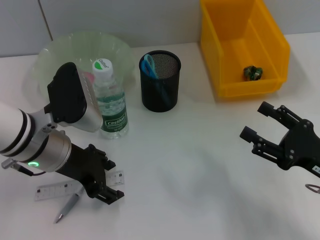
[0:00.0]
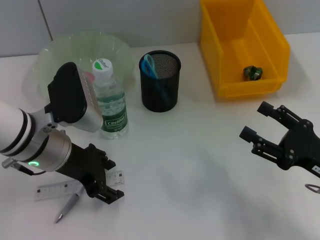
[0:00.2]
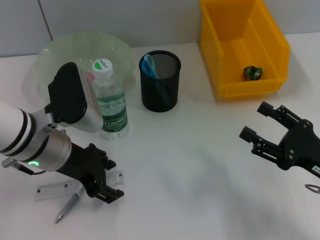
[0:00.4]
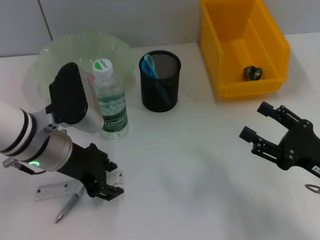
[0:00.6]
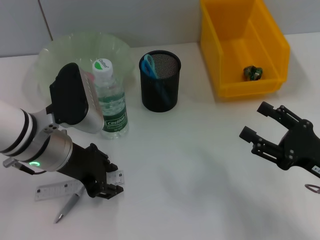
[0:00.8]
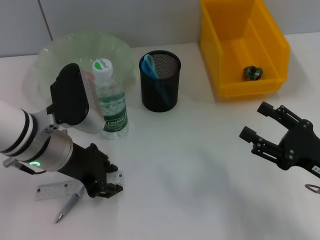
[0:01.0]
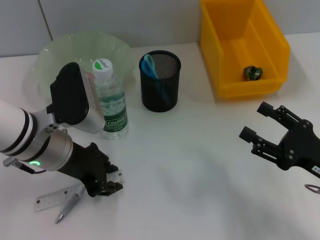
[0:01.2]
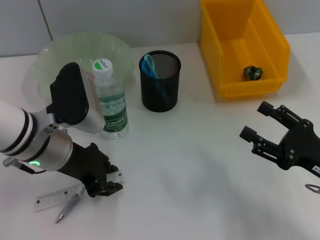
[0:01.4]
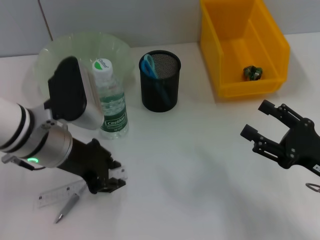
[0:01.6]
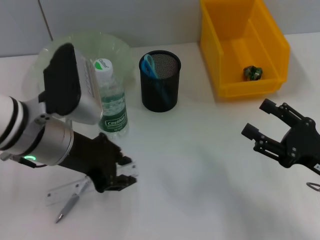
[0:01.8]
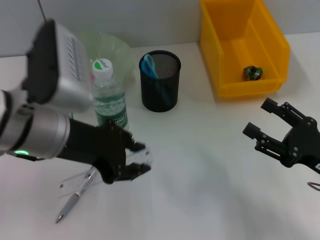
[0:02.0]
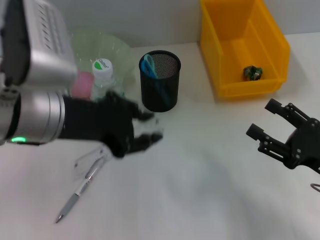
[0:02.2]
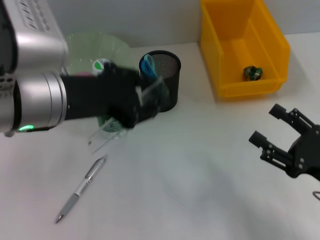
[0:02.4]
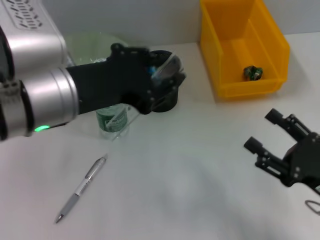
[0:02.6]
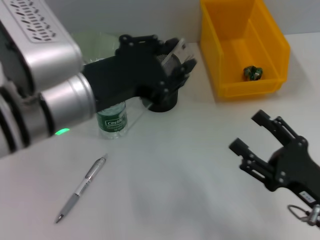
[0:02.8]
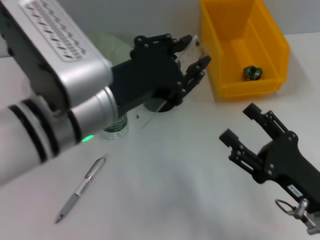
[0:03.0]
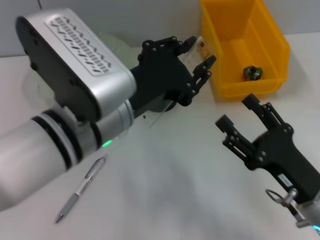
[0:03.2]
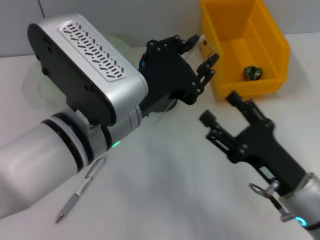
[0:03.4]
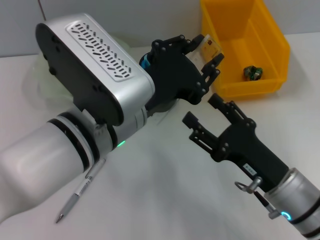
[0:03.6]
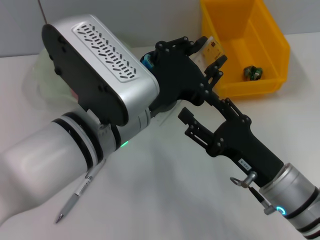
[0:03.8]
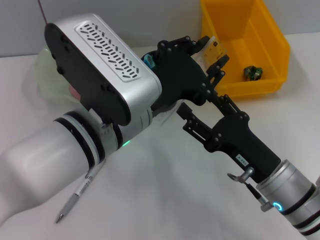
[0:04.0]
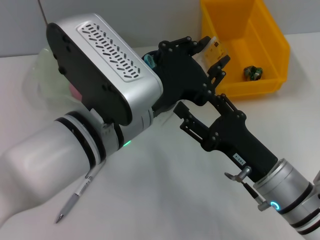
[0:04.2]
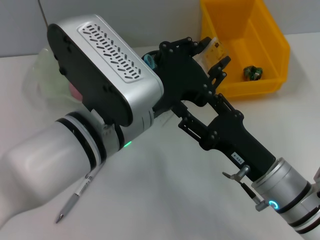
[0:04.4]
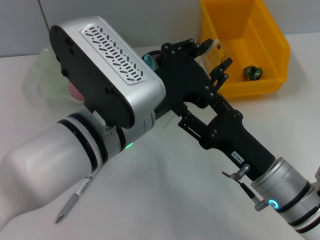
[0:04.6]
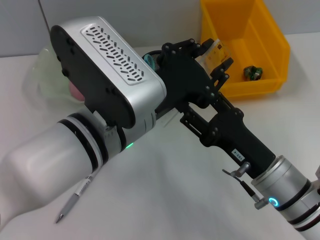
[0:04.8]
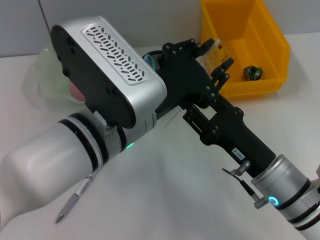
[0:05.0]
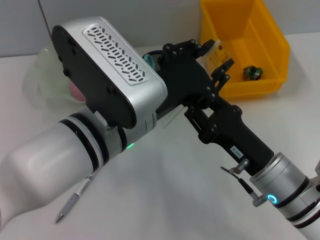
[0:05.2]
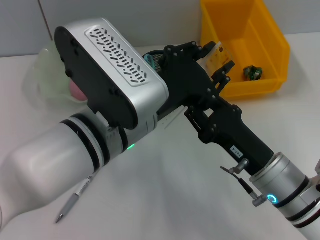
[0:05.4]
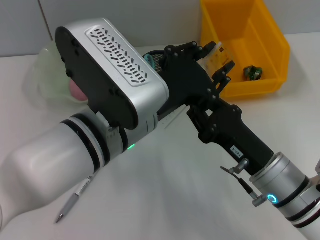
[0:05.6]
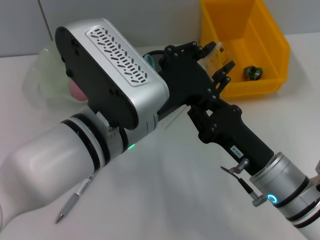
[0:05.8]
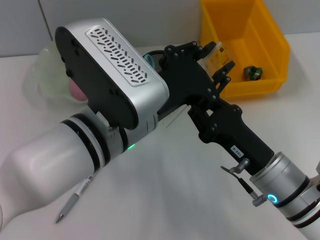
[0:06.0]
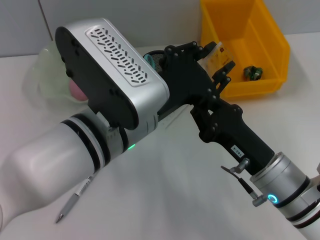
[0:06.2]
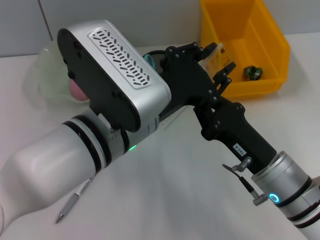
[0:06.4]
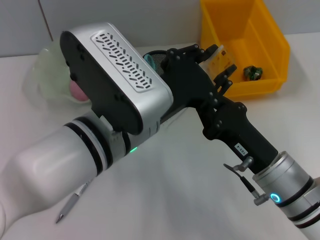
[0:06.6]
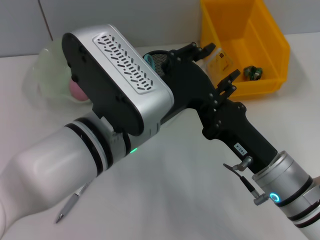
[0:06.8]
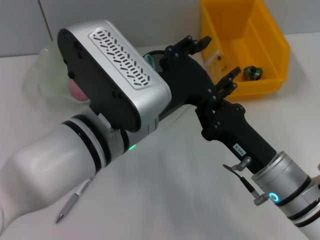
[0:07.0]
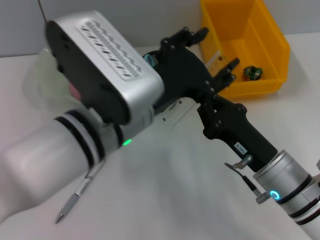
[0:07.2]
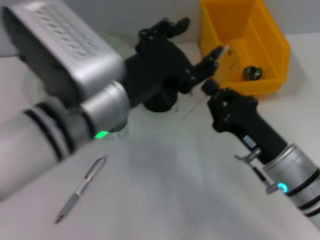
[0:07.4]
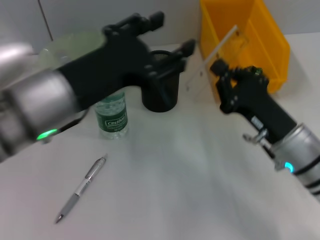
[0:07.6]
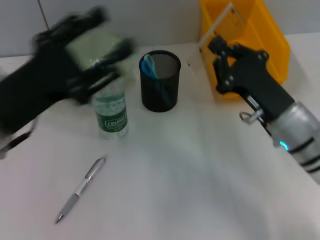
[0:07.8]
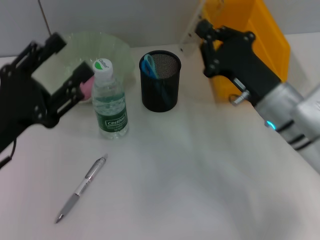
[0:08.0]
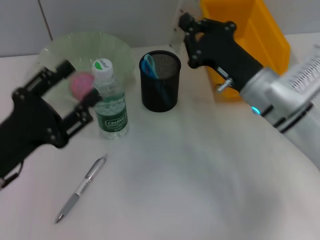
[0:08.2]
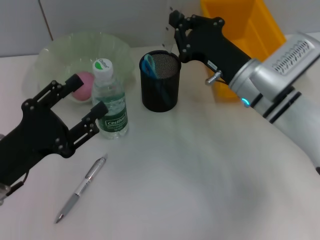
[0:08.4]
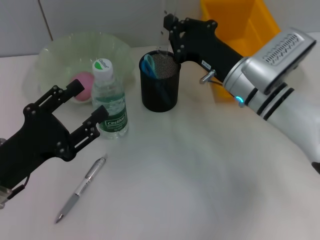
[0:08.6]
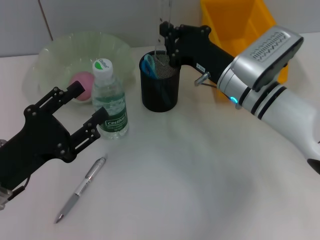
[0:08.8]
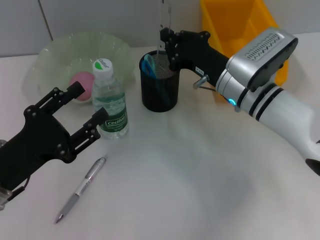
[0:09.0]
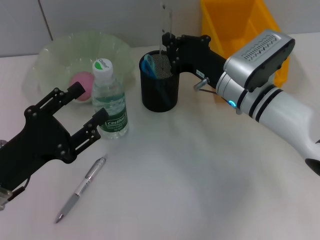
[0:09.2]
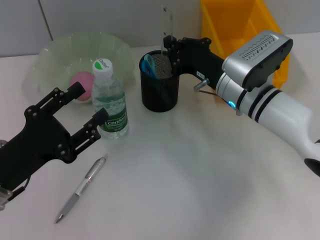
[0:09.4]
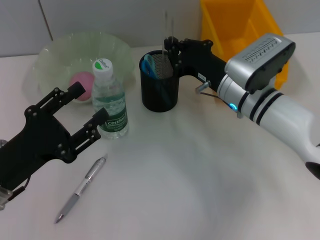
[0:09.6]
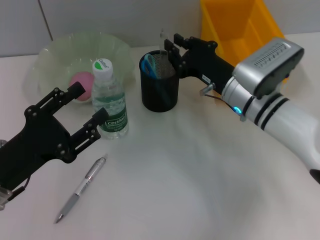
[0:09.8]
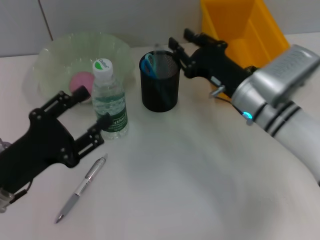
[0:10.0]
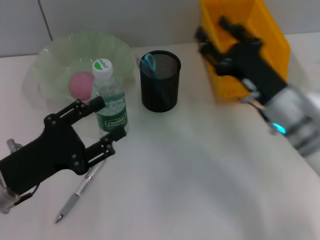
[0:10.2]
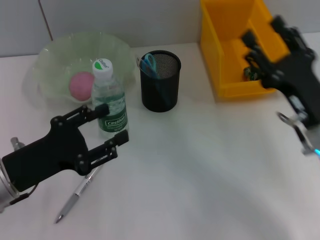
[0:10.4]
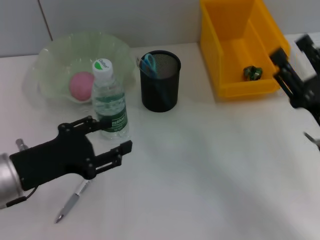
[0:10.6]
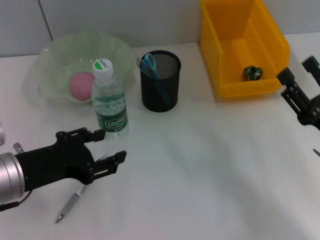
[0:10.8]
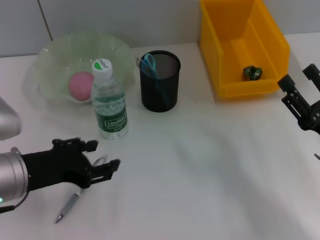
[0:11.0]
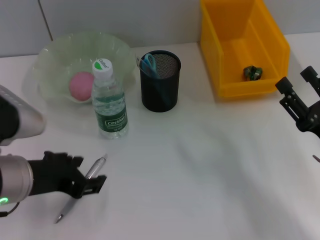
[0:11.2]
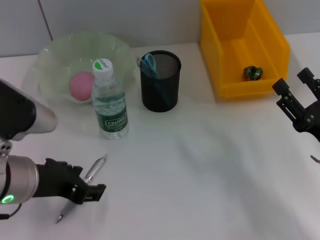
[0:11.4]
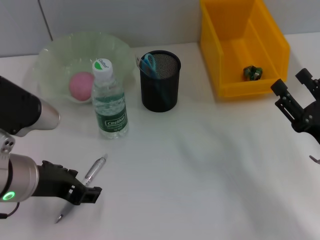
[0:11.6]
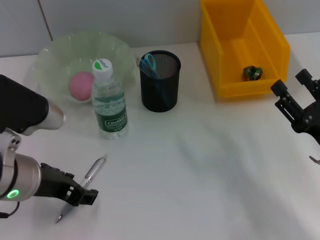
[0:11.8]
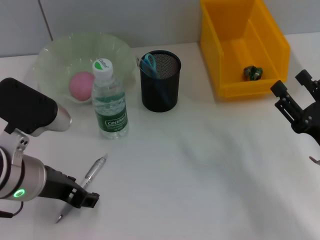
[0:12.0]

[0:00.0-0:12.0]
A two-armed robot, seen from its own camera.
Step, 0:01.6 to 0:07.0: Pass the ruler from the left hand to the right hand.
Step, 0:07.2 to 0:10.0: Place the ruler into the pen holder with the right hand.
0:00.0 to 0:01.6: The left gripper closes.
0:01.6 to 0:03.0: The left gripper shifts approximately 10 cm upward, backward and to the right. The right gripper shifts some 5 cm to the left.
0:03.0 to 0:04.4: The right gripper travels to the left by about 5 cm.
0:04.4 to 0:06.0: The right gripper closes up.
0:06.0 to 0:07.6: The left gripper travels to the left by about 5 cm, while the right gripper shifts by approximately 5 cm.
0:07.6 to 0:09.0: The right gripper is displaced forward and to the left by some 10 cm. The left gripper travels downward and to the left by about 15 cm.
0:09.0 to 0:10.4: The right gripper is displaced backward and to the right by some 15 cm, and opens up.
0:10.4 to 0:12.0: The right gripper ends up approximately 10 cm from where it was. Meanwhile the left gripper shifts about 5 cm to the right.

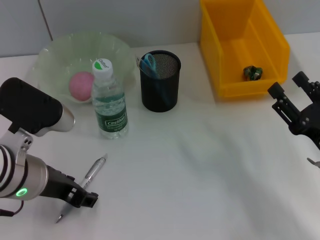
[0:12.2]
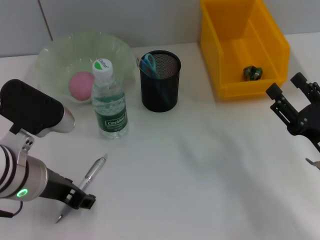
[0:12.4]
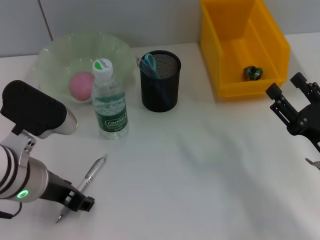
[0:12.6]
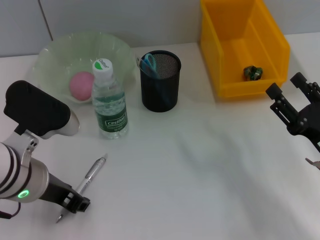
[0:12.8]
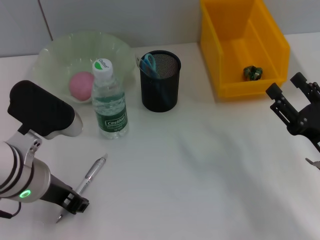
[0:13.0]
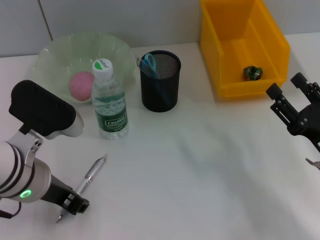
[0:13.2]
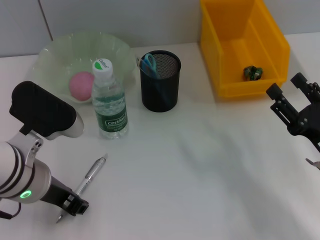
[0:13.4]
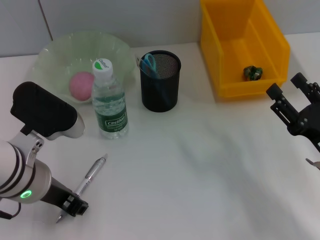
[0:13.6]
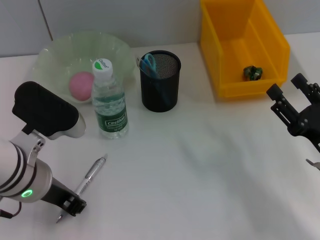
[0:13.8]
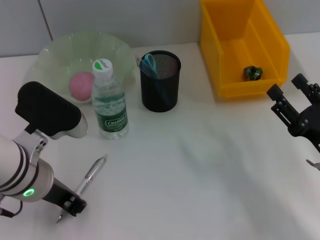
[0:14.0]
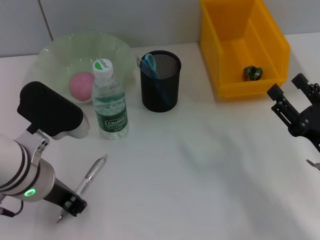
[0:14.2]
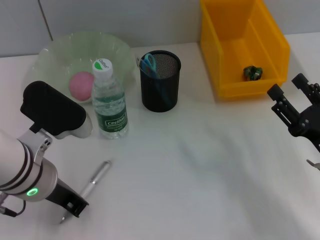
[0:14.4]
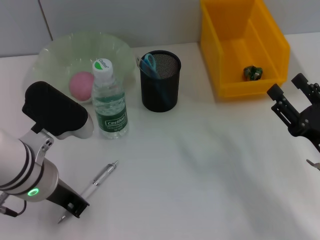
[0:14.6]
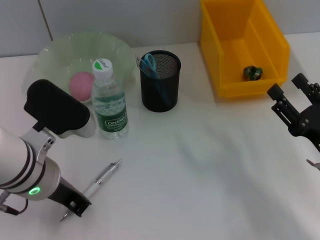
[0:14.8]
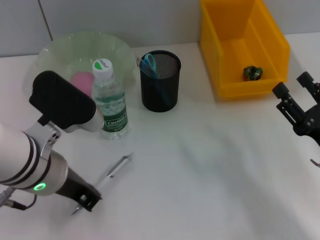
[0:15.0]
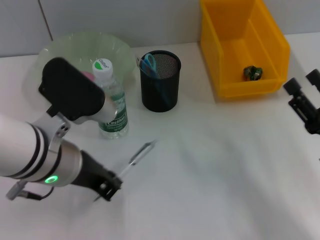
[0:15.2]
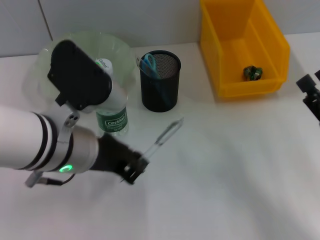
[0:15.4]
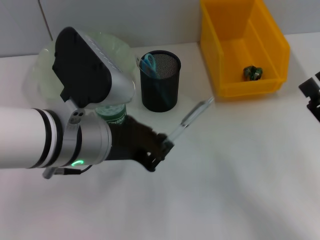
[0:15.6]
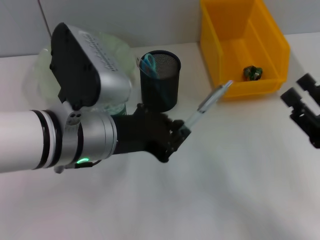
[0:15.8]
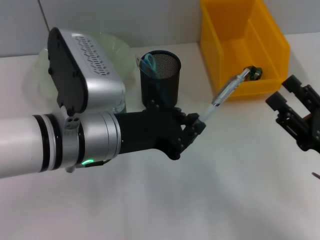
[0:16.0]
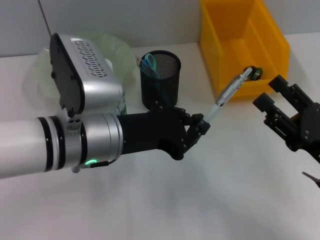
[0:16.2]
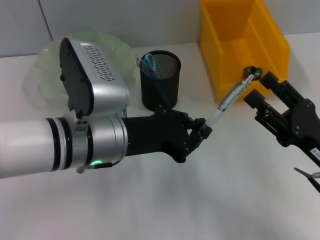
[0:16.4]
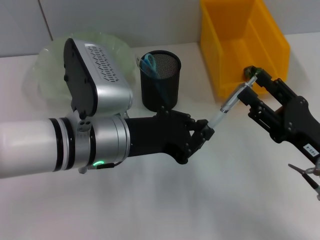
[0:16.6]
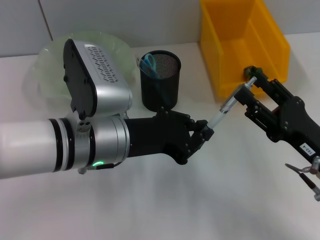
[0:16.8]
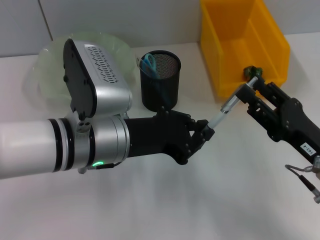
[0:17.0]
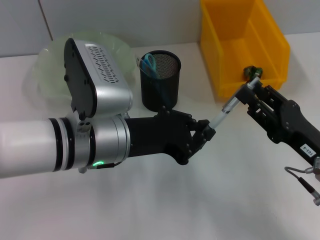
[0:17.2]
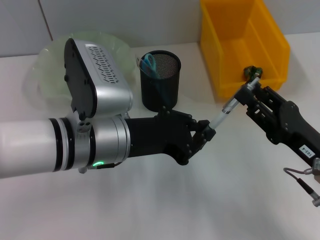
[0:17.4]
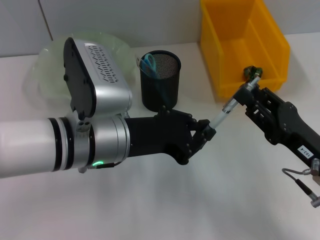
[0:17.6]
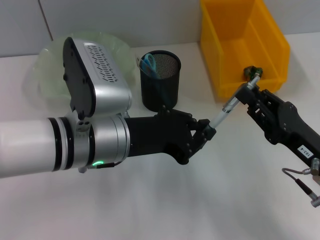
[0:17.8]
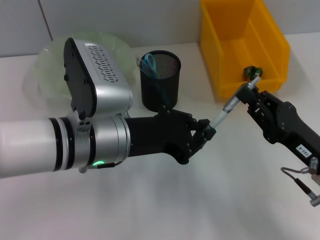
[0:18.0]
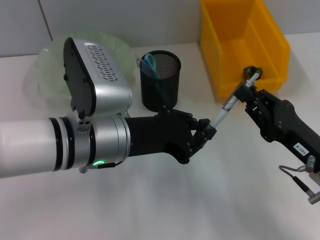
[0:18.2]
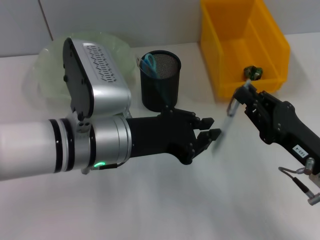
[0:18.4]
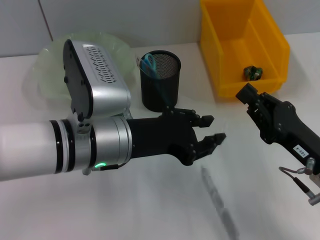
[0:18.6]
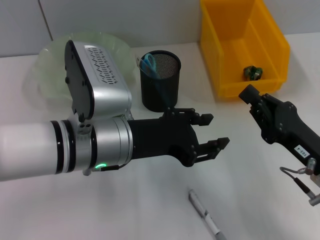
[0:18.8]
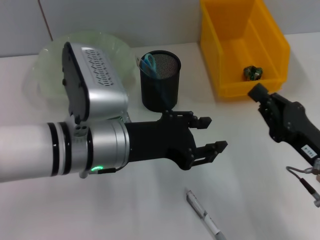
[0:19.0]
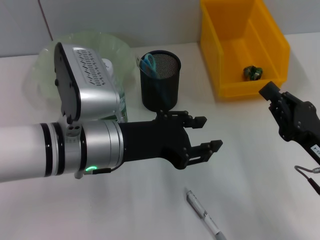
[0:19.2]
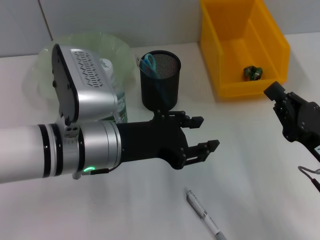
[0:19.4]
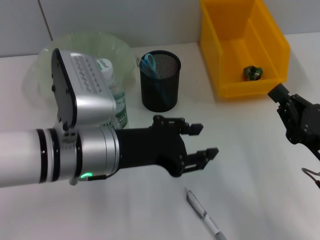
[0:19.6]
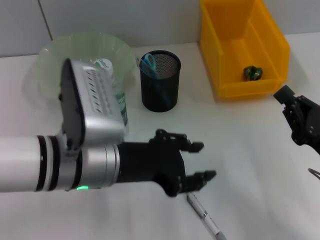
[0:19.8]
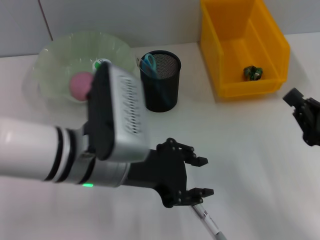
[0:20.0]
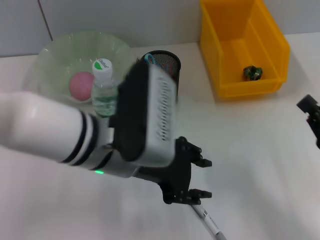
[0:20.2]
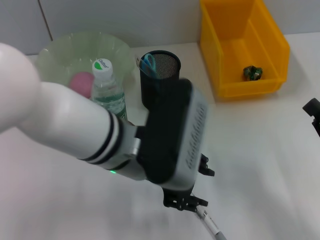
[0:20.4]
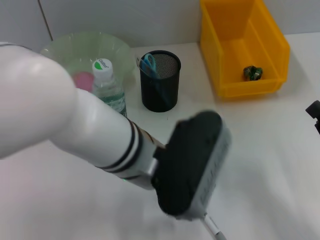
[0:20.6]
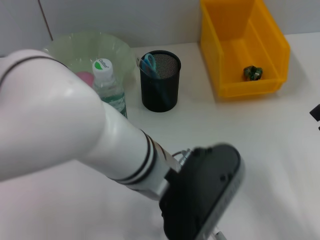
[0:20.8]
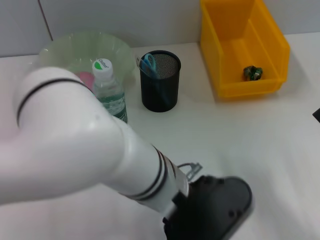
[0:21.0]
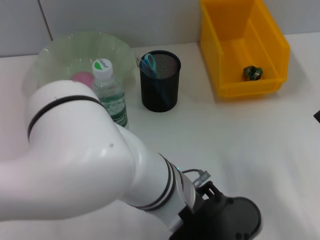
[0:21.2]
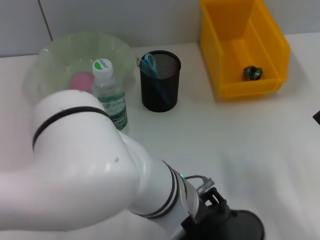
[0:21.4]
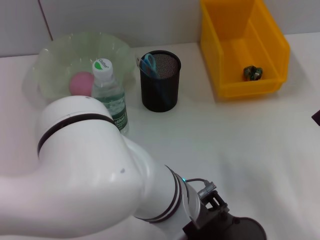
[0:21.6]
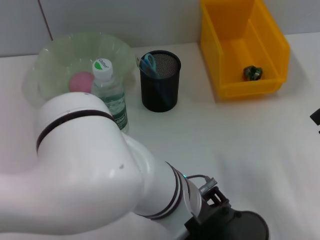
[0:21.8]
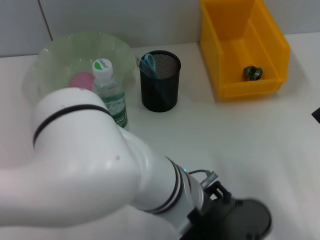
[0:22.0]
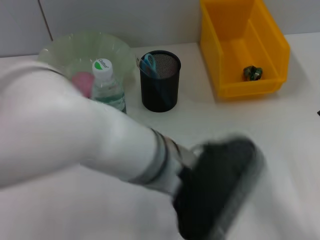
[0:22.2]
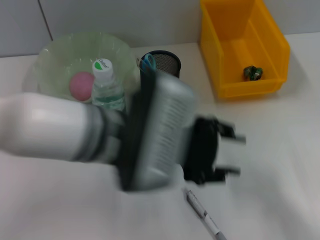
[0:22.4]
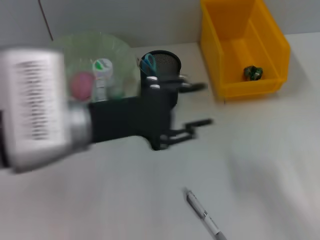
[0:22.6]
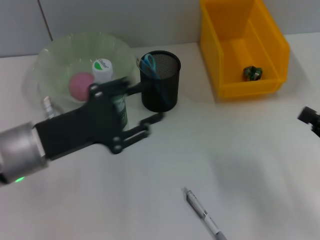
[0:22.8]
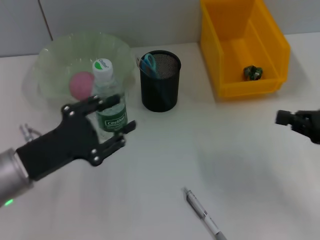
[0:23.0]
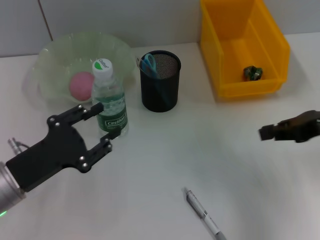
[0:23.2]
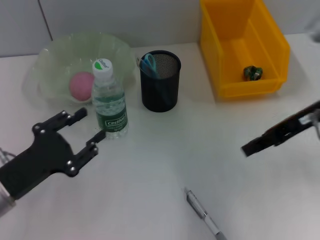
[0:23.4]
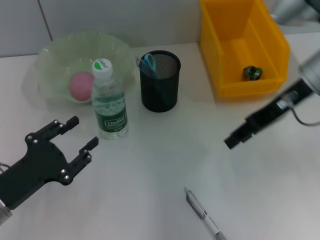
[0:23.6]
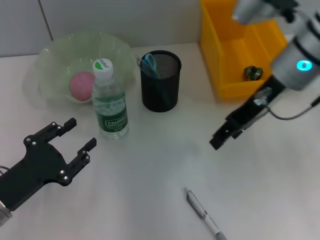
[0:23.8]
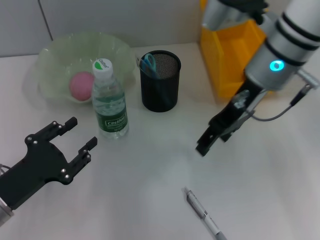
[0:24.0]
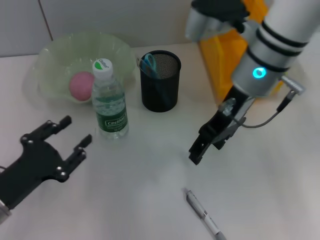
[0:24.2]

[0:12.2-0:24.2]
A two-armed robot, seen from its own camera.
Step, 0:12.2 to 0:14.4: Grab the gray spring-action pen with the left hand.
0:12.2 to 0:13.8: The left gripper closes up.
0:13.8 to 0:15.2: The left gripper closes up.
0:16.6 to 0:18.2: The right gripper closes its fingers.
0:18.2 to 0:19.8: The left gripper opens.
0:19.8 to 0:21.2: The left gripper moves to the right, approximately 10 cm. The right gripper shifts by about 5 cm.
0:21.2 to 0:22.6: The left gripper travels to the left by approximately 15 cm.
0:22.6 to 0:24.2: The right gripper goes about 35 cm to the left, forward and upward, and opens its fingers. The left gripper goes roughly 20 cm downward and to the left.
